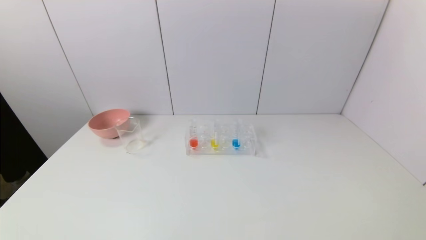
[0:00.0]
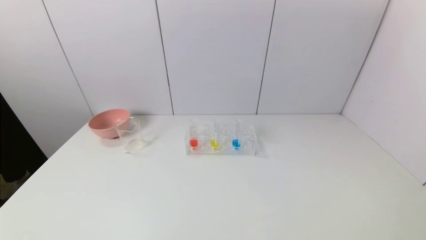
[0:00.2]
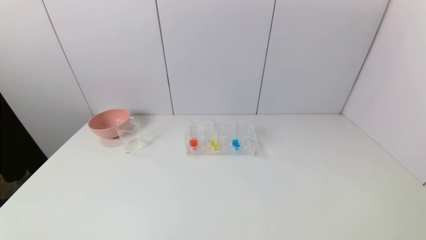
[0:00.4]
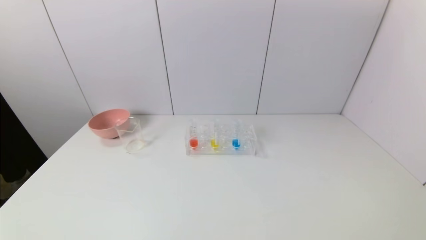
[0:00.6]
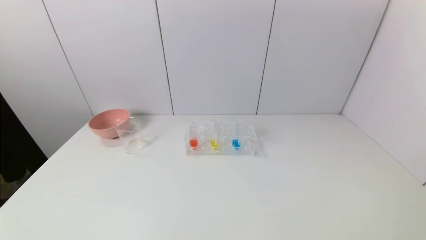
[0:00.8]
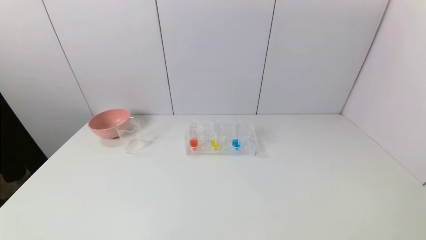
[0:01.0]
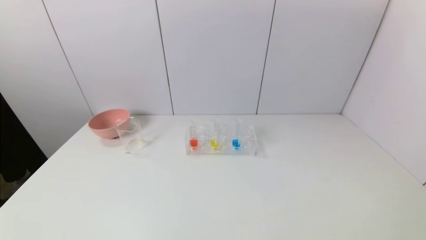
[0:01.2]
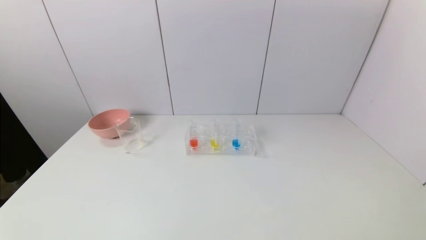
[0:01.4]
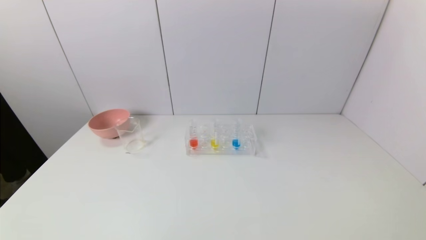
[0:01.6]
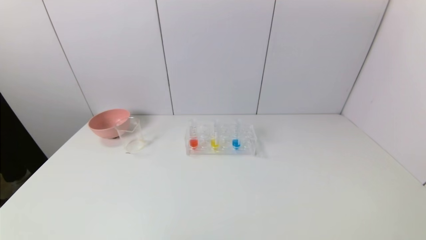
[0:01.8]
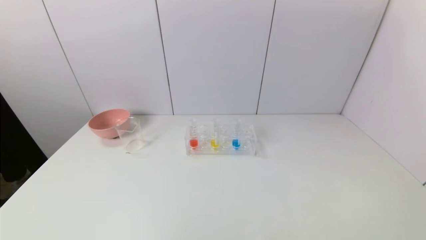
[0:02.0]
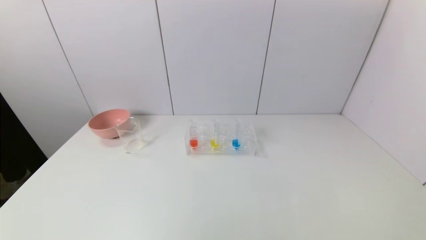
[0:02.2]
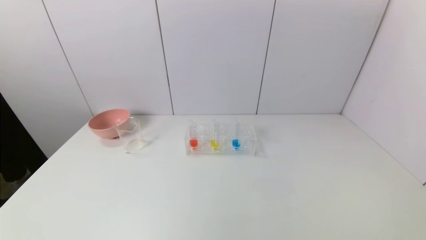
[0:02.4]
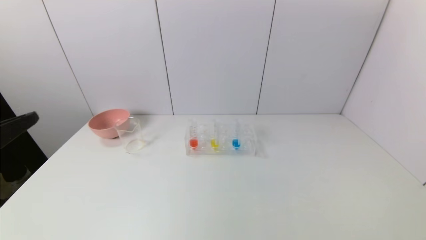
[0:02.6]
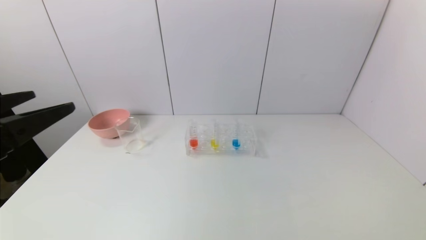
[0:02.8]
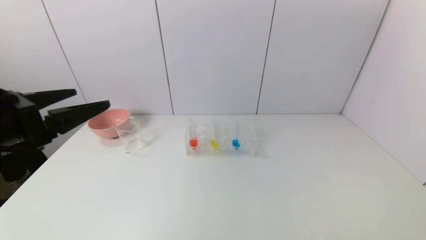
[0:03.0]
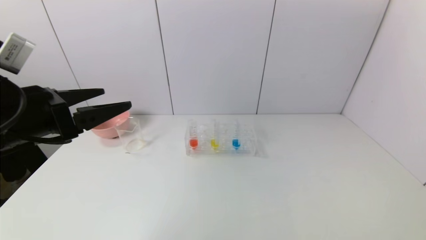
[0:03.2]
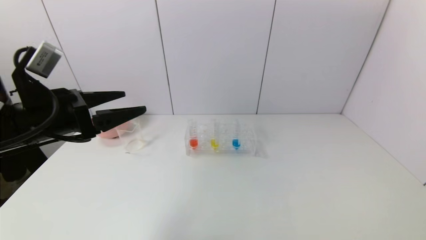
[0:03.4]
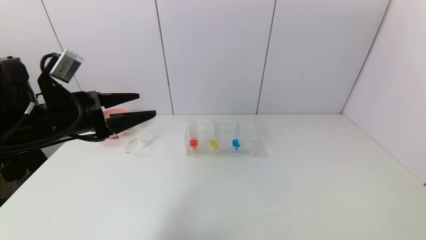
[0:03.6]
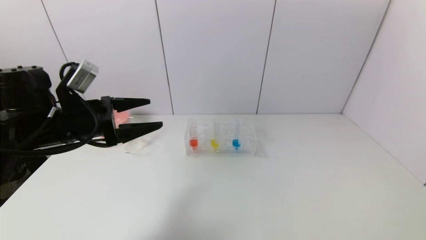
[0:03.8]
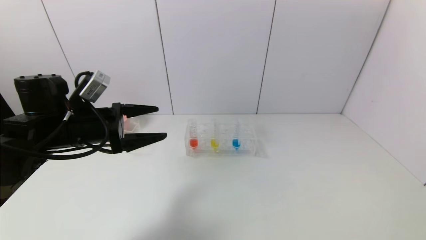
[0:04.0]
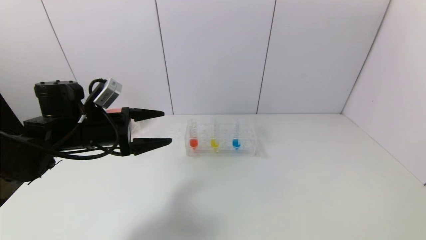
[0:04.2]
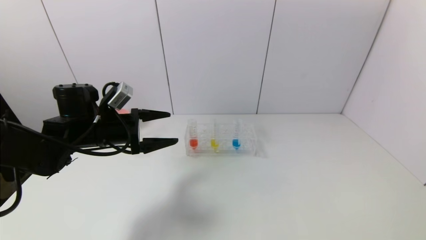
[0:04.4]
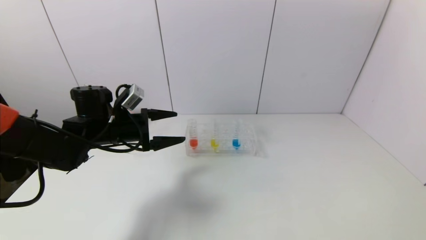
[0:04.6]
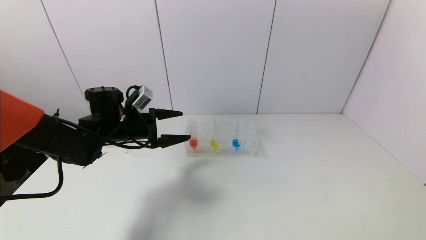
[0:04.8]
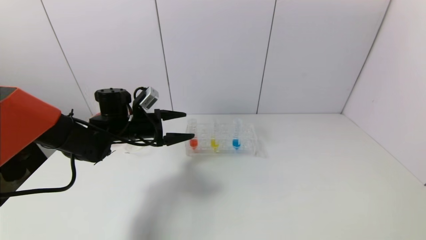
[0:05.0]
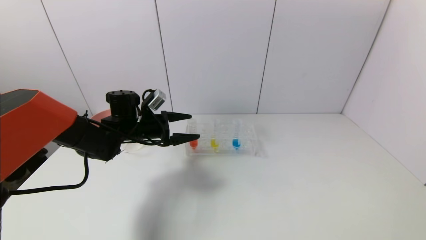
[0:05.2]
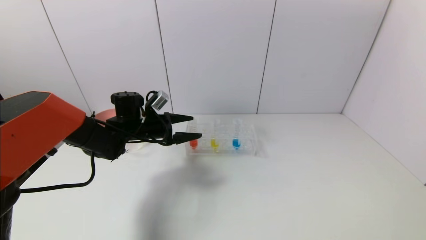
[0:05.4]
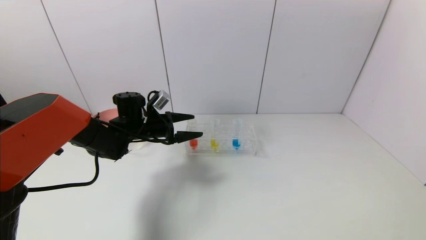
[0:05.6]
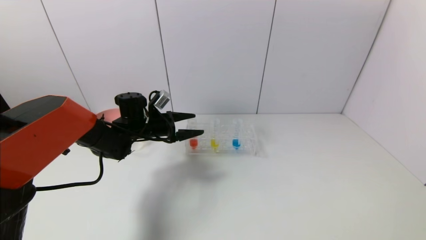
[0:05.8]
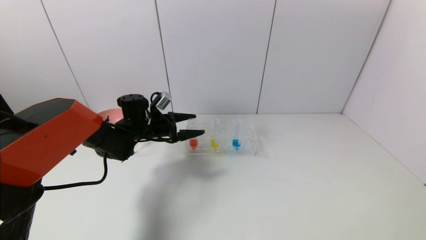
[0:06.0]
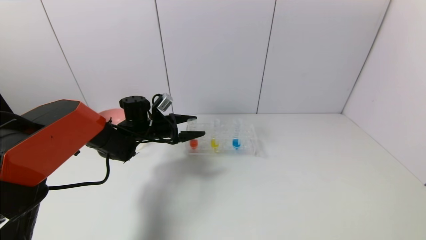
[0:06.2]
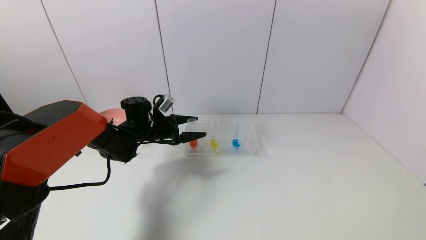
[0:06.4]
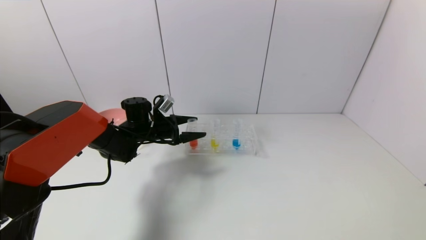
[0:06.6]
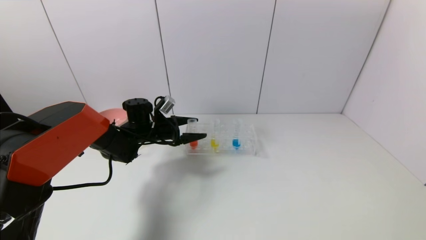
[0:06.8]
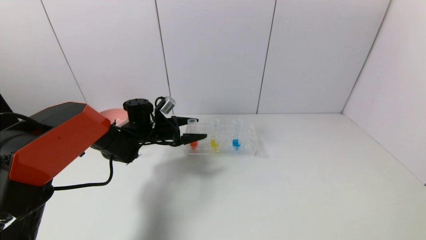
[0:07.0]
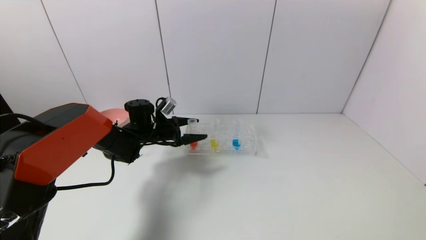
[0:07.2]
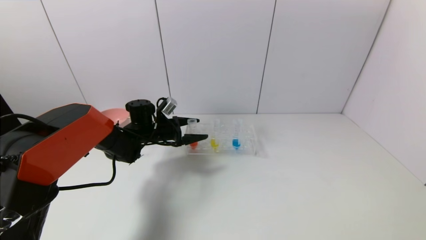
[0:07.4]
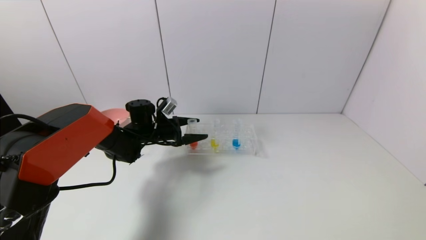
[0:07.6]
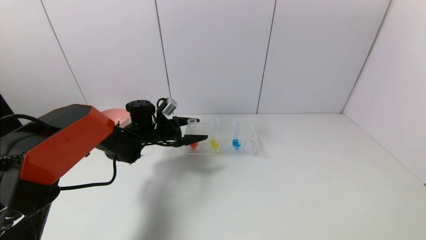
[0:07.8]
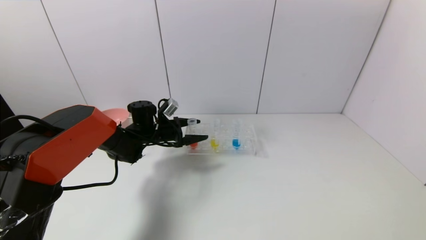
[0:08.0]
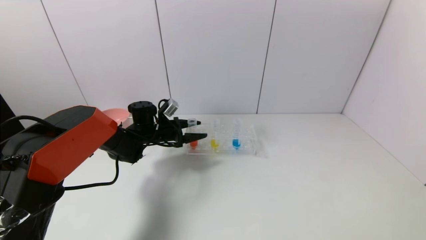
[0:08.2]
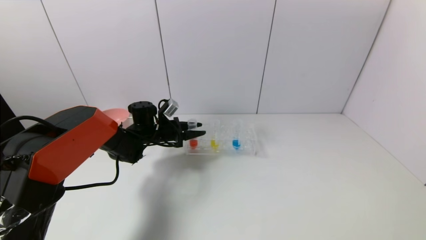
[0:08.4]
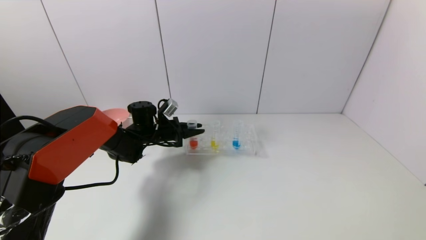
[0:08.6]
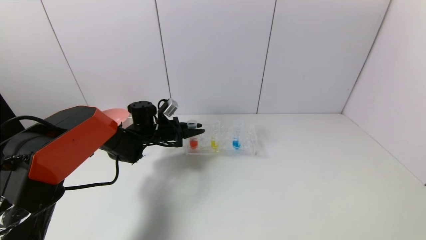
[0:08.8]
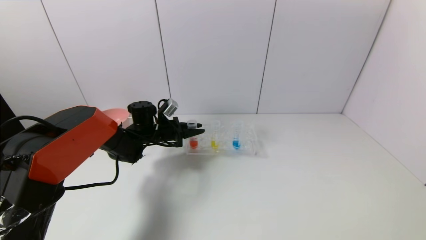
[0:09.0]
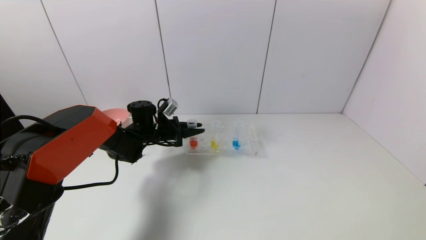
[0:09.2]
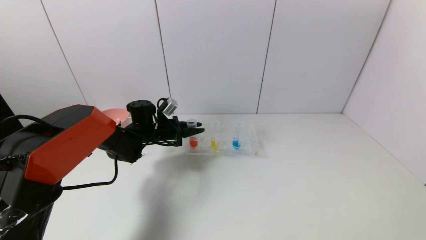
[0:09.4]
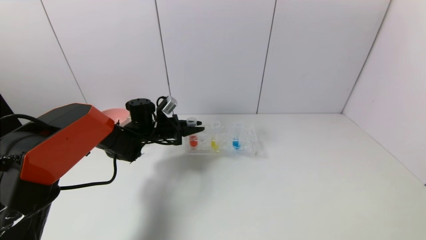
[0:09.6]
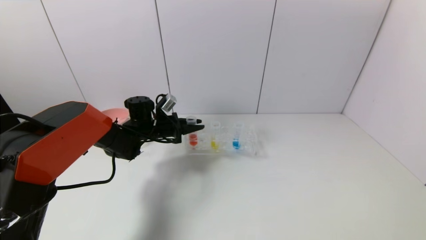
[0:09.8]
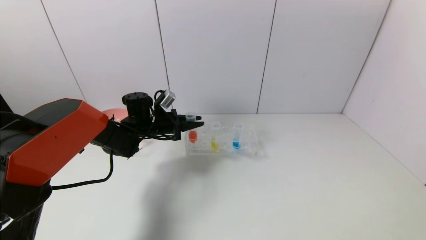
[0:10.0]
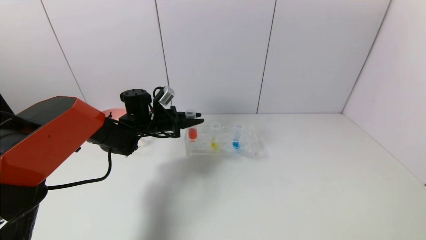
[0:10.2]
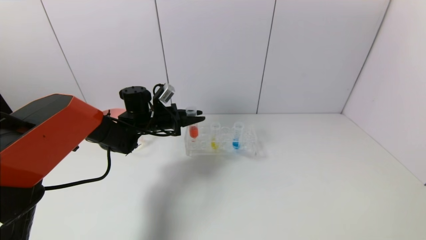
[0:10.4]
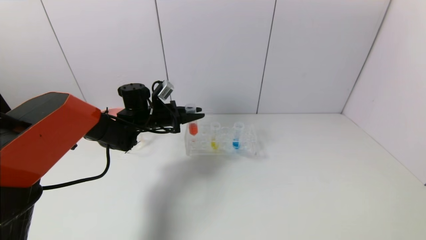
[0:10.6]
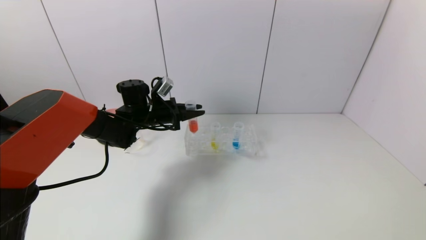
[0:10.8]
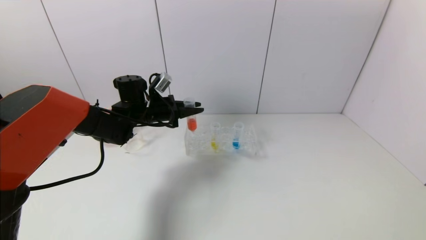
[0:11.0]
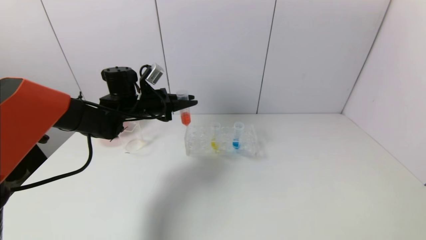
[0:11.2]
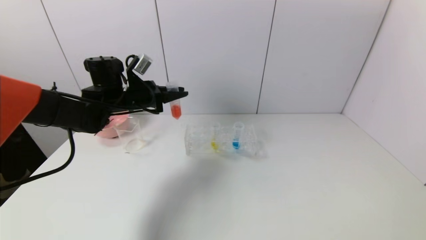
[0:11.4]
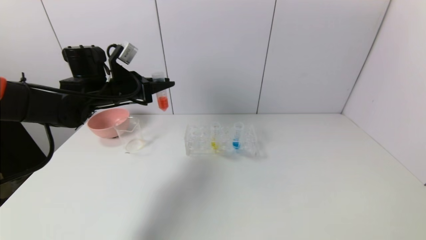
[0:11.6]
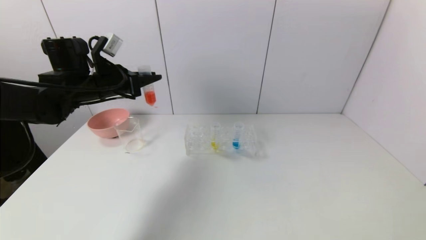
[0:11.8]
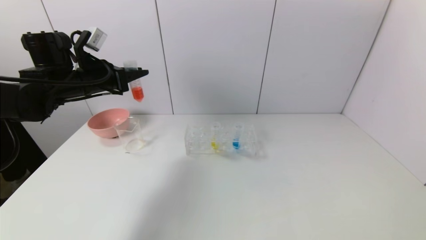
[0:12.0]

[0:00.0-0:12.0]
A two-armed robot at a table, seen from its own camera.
Task of the whole recording: pick up the test tube with yellow pigment and the test tube with red pigment by grippers and pour them into the beaker.
Step, 0:00.0 to 0:08.8: Grasp the red reagent with the left gripper.
0:01.6 to 0:03.0: The left gripper goes some 25 cm forward and upward.
0:03.0 to 0:04.4: The left gripper shifts approximately 20 cm forward and downward.
0:04.4 to 0:06.0: The left gripper shifts some 15 cm forward, downward and to the right.
0:06.0 to 0:07.6: There are only small adjustments of the grippers.
0:07.6 to 0:09.0: The left gripper closes up.
0:09.0 to 0:10.4: The left gripper shifts roughly 5 cm upward.
0:10.4 to 0:12.0: The left gripper goes about 20 cm upward, to the left and backward.

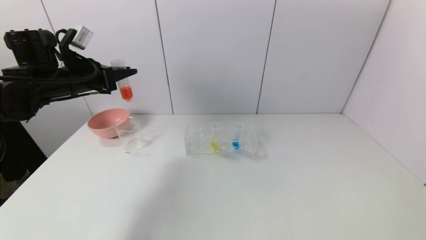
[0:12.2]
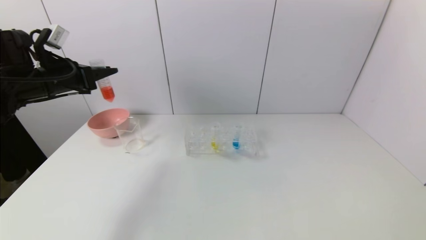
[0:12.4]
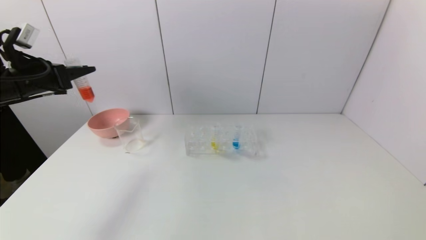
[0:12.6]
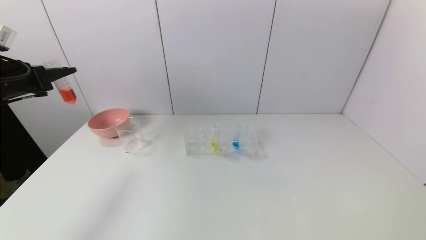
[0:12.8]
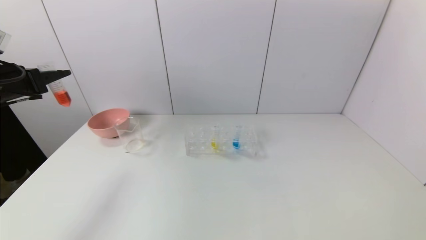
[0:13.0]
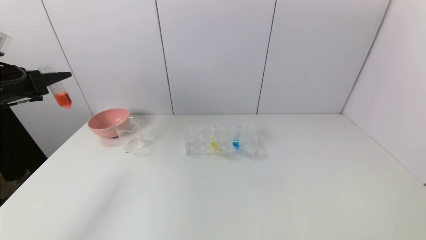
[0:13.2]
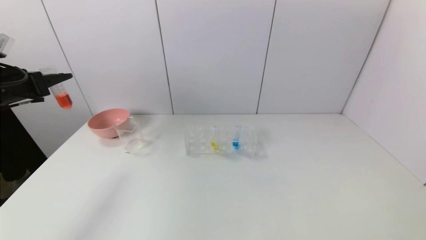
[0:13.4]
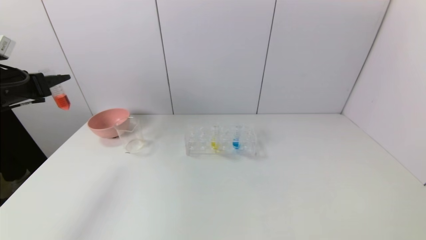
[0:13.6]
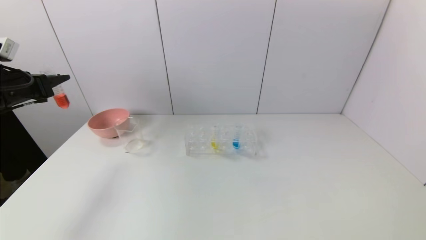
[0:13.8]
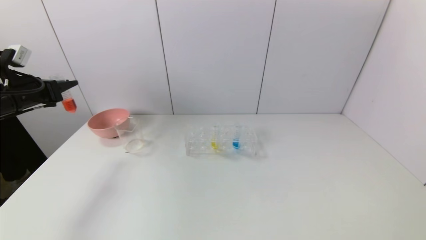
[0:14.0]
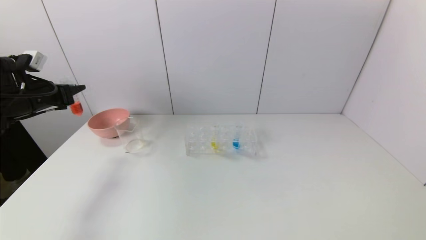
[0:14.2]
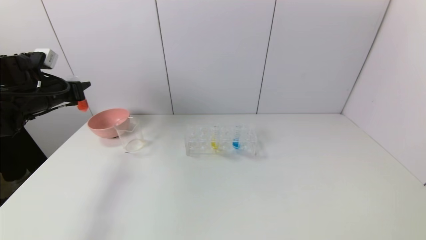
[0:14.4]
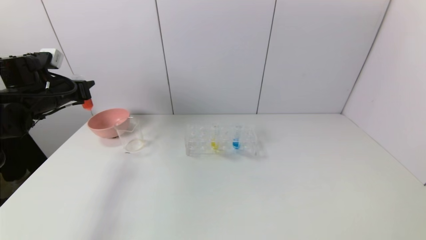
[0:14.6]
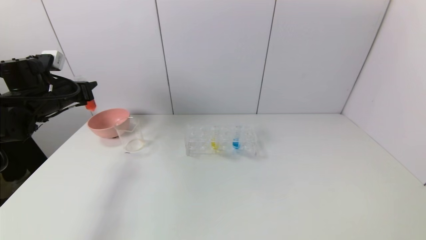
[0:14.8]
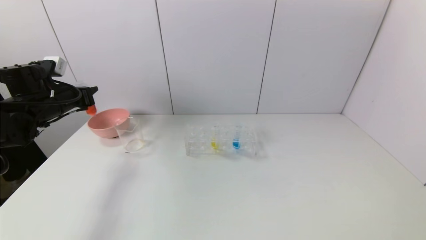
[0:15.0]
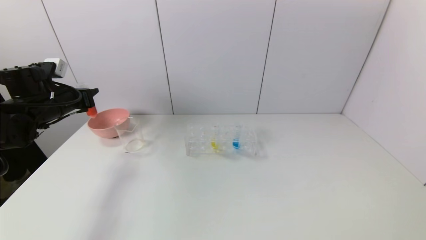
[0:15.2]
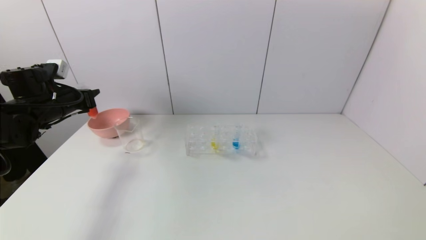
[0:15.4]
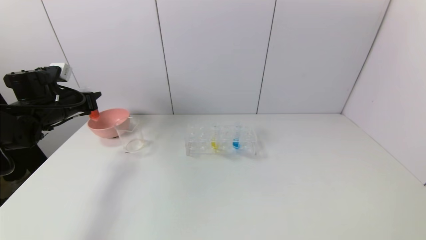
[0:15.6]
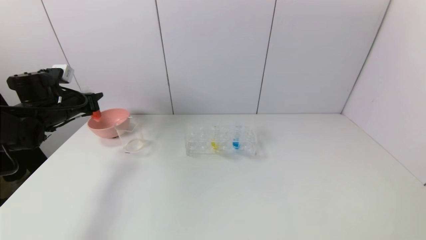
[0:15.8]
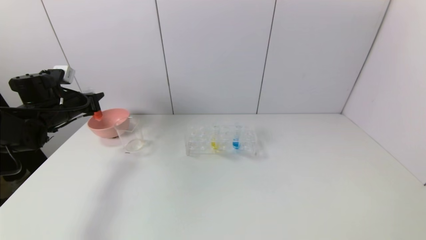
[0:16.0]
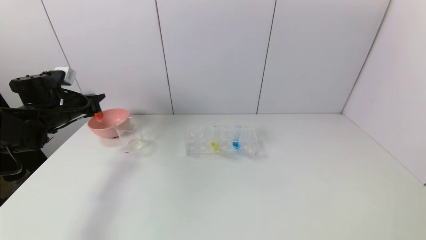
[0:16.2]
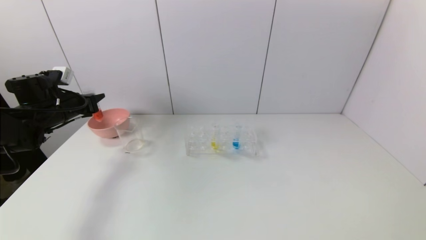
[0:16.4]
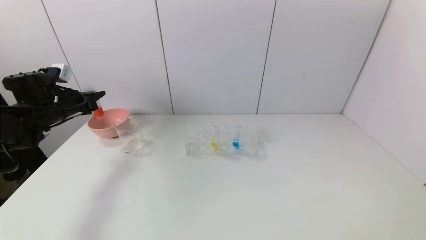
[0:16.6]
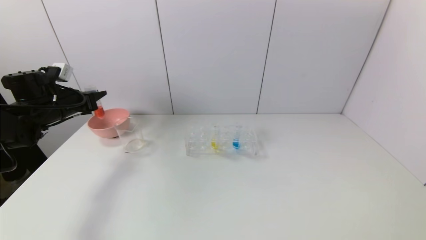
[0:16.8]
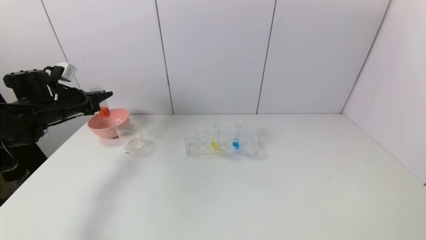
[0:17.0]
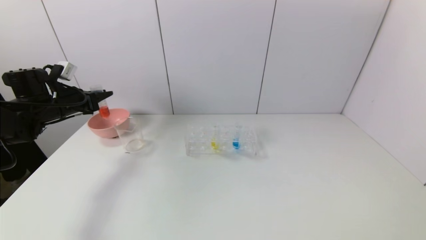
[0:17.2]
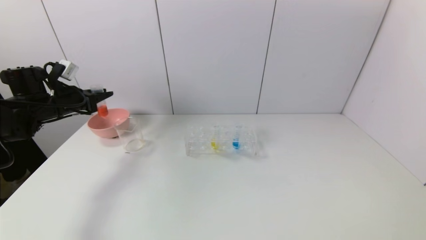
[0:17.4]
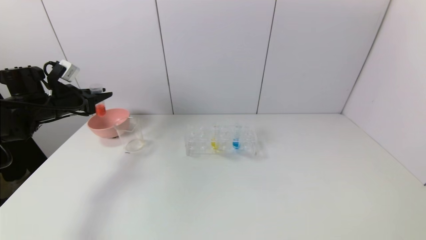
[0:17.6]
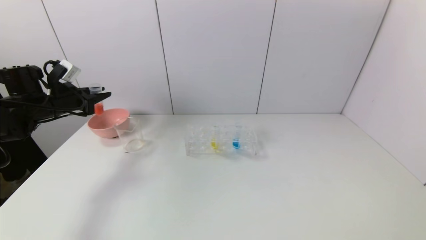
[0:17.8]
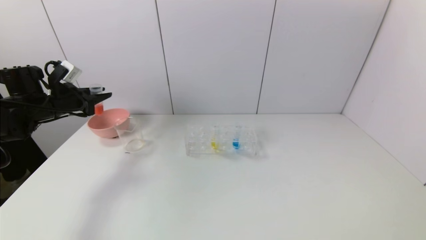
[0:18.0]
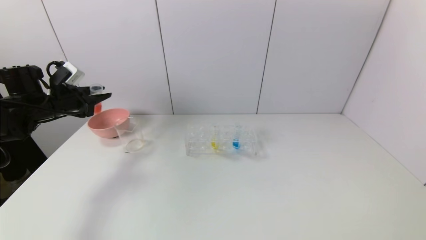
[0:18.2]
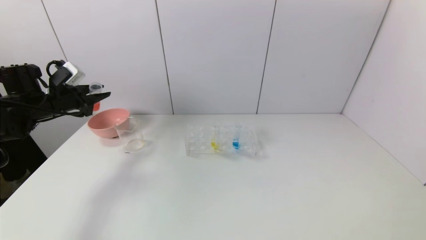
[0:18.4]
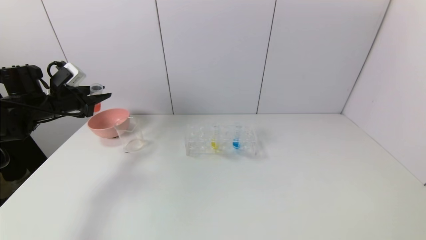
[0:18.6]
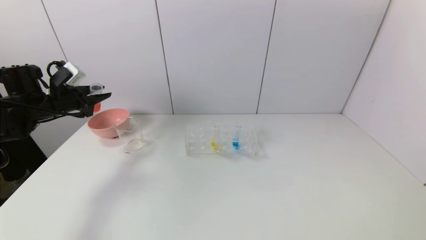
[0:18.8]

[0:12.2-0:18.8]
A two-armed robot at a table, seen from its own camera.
Task of the whole recording: pick up the test tube with yellow pigment and the test tube with red pigment by grippers and pour them into the beaker.
0:12.2 to 0:13.8: The left gripper heads to the left, covering approximately 10 cm.
0:13.8 to 0:15.4: The left gripper goes some 5 cm to the right and downward.
